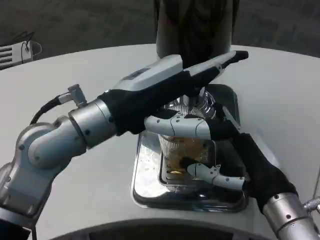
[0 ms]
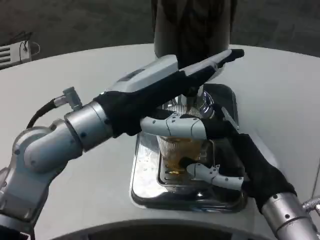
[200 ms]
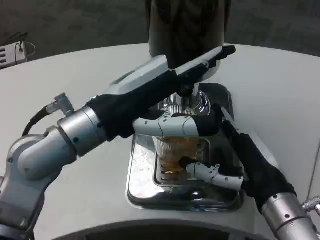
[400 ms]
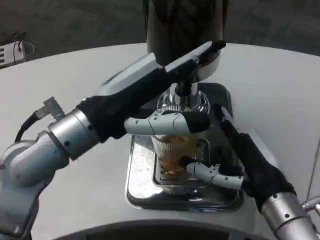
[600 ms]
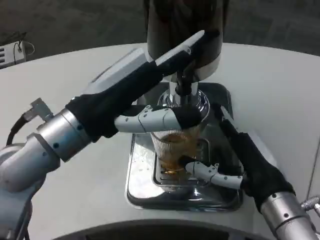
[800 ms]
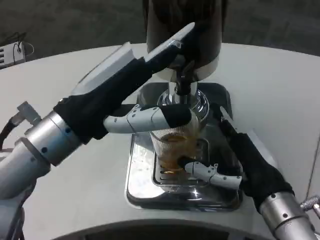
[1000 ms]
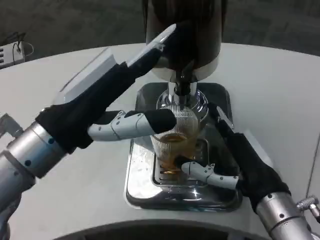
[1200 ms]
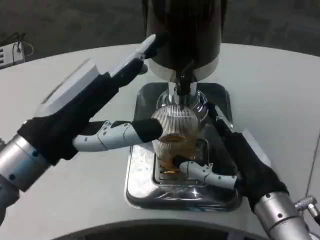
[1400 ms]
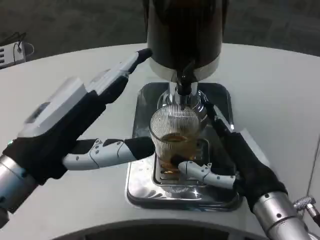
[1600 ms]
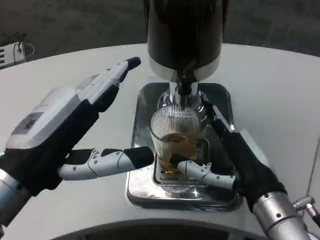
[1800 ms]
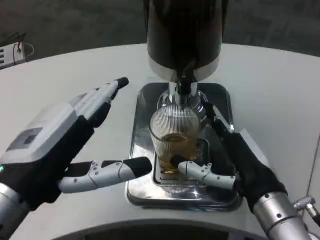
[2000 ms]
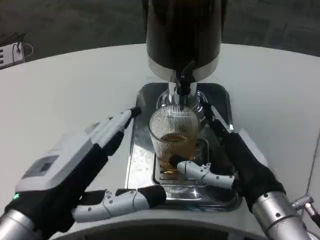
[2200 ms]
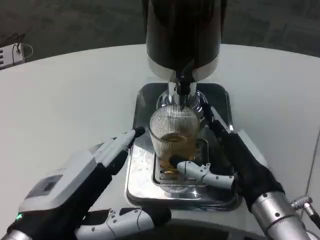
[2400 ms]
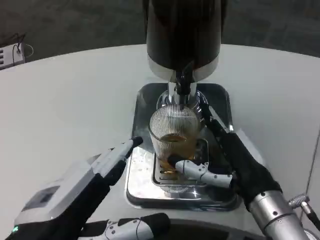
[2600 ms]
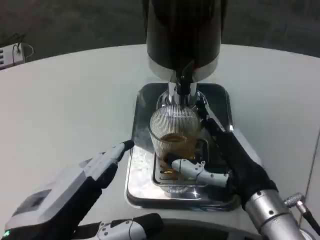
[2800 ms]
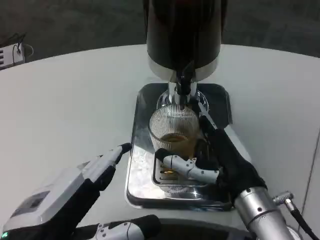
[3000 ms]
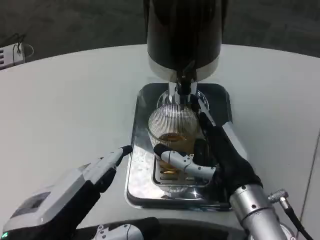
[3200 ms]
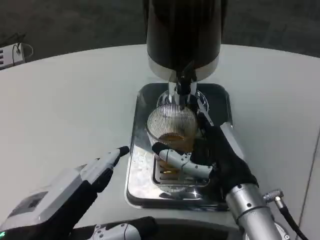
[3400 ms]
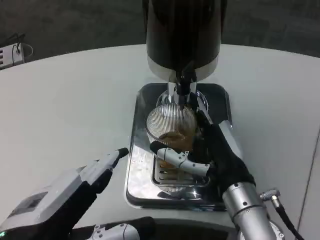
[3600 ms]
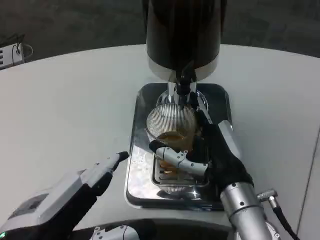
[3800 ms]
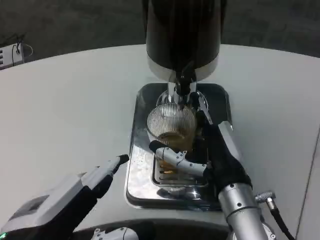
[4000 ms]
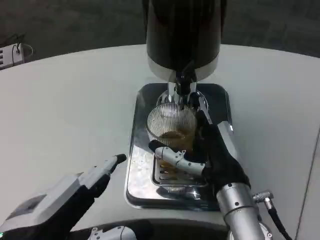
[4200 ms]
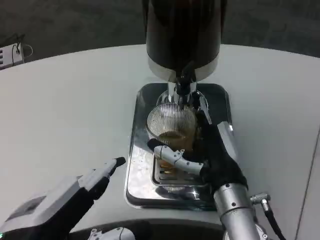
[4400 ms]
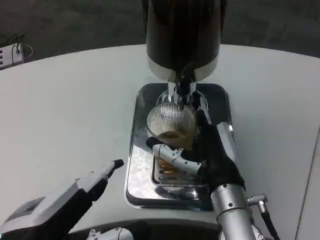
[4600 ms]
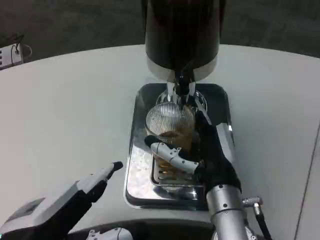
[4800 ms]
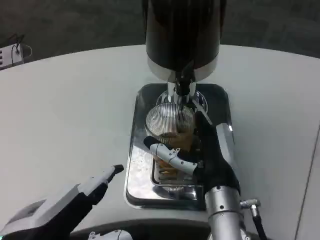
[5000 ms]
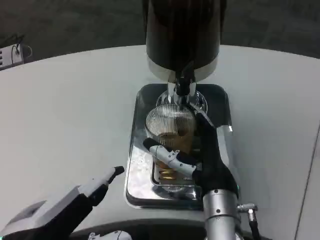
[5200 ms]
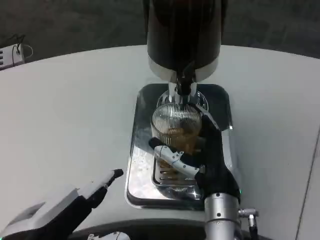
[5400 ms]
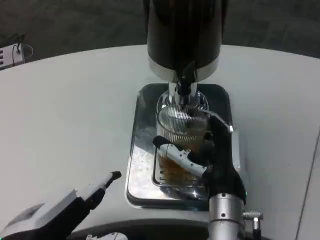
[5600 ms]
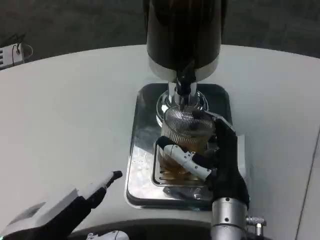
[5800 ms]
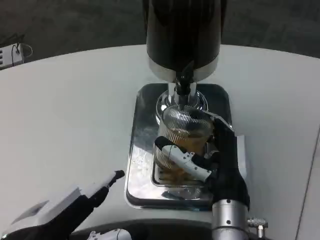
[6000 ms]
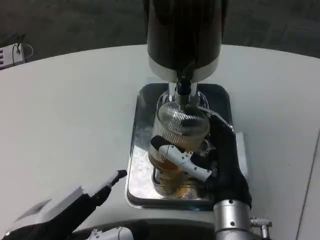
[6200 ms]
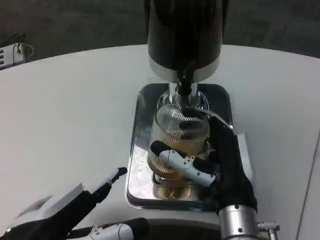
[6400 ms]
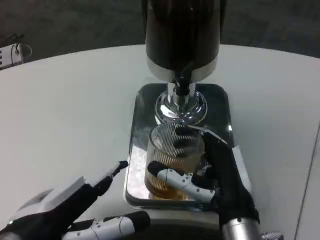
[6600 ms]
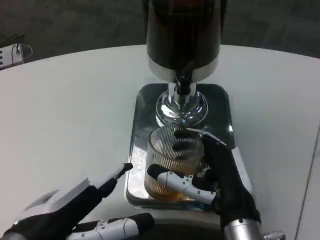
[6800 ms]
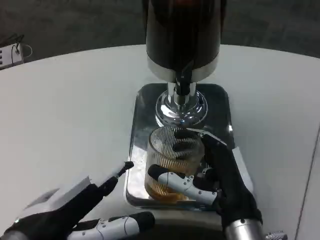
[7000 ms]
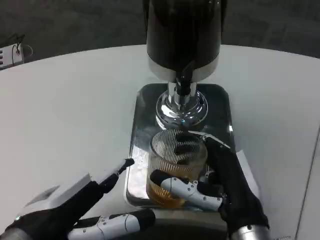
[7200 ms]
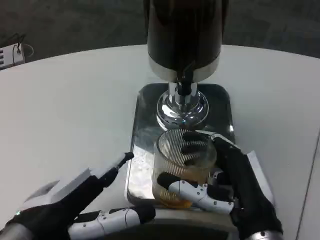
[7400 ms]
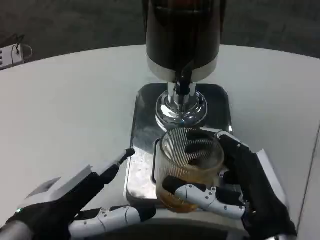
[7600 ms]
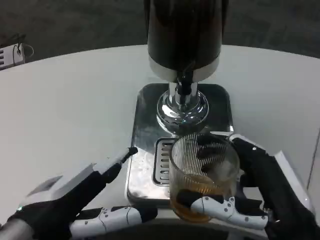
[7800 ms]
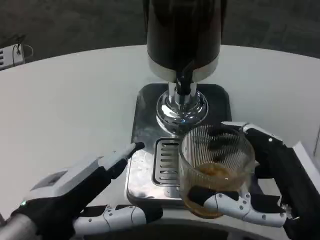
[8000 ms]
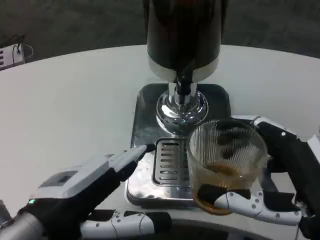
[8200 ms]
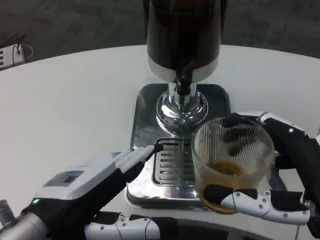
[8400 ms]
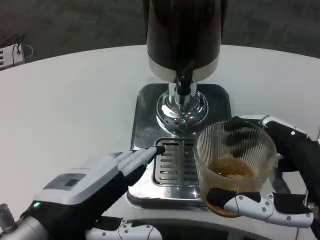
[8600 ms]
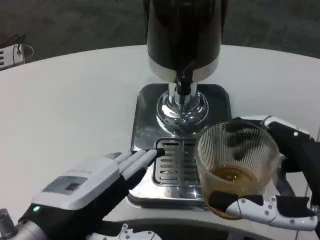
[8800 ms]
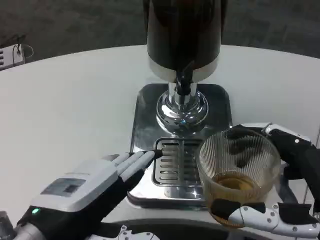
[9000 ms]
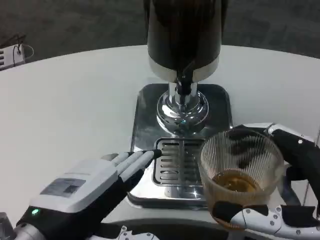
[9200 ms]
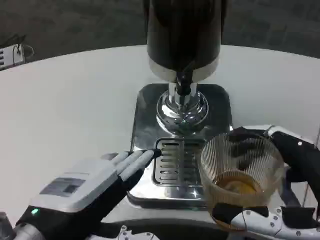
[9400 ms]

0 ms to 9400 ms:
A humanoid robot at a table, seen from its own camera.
Task of the whole recording: Grasp the cup under the faucet to collect the drink, then remove the cup.
0 ms to 1600 ms: The left hand shifts some 10 cm backward and to the left.
1600 ms to 3200 ms: The left hand moves backward, some 10 cm.
3200 ms to 4800 ms: The hands move only a little.
4800 ms to 6200 ms: There are only small adjustments of the hands.
6200 ms to 7800 ms: The right hand shifts approximately 10 cm backward and to the right.
7800 ms to 9400 ms: The right hand moves some 5 cm.

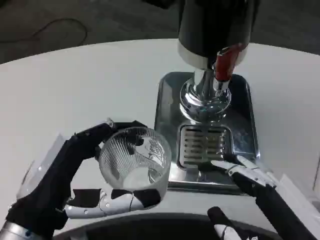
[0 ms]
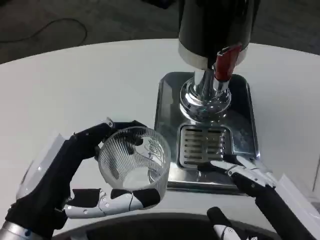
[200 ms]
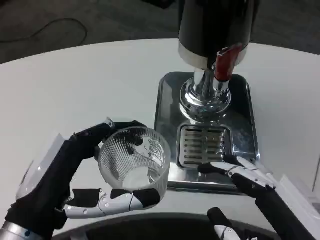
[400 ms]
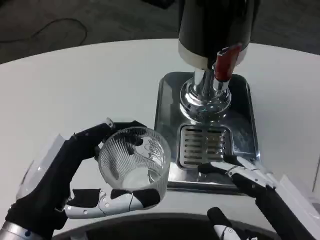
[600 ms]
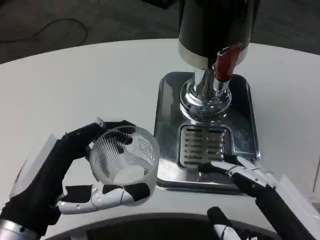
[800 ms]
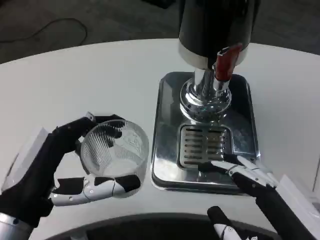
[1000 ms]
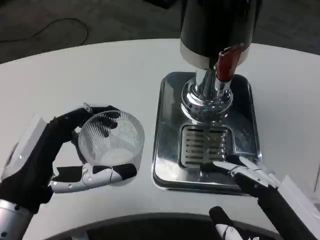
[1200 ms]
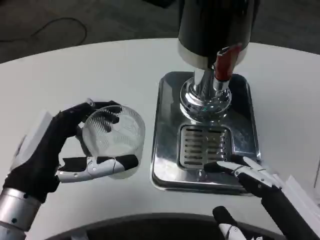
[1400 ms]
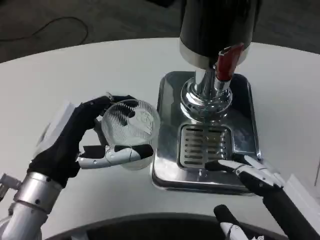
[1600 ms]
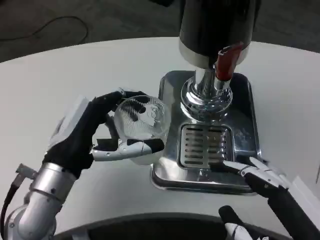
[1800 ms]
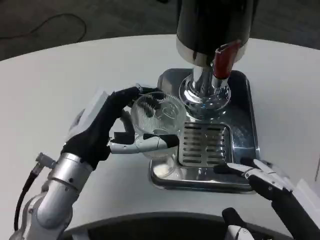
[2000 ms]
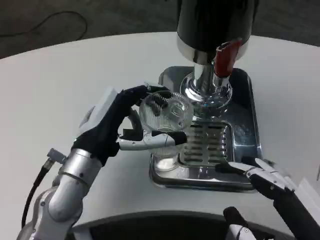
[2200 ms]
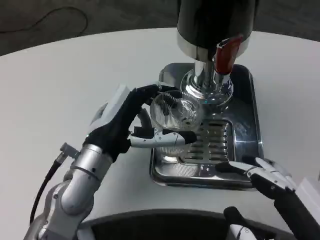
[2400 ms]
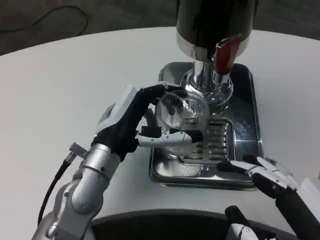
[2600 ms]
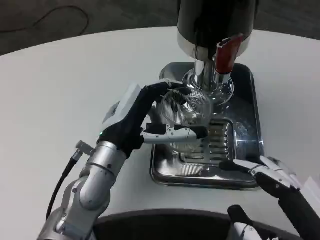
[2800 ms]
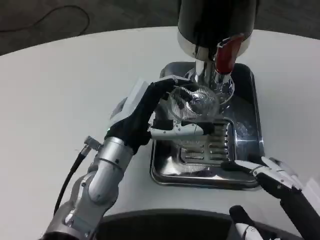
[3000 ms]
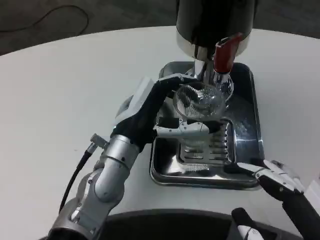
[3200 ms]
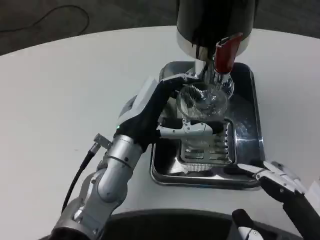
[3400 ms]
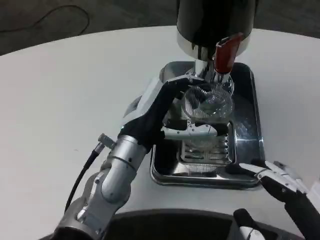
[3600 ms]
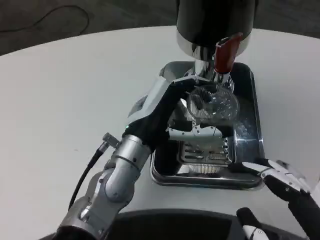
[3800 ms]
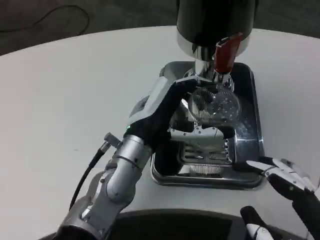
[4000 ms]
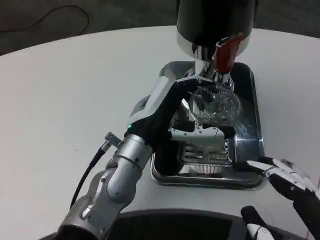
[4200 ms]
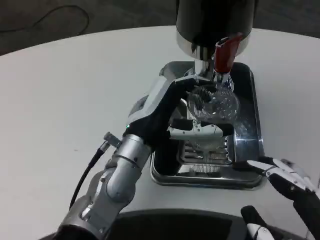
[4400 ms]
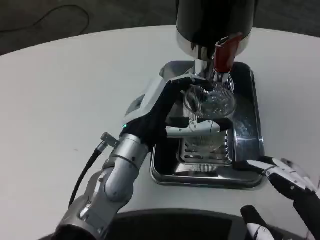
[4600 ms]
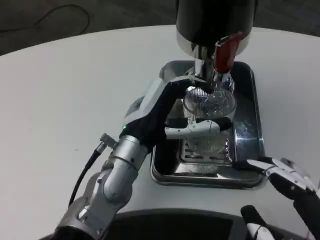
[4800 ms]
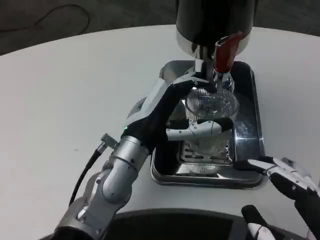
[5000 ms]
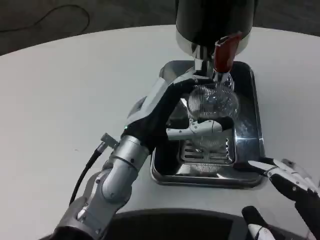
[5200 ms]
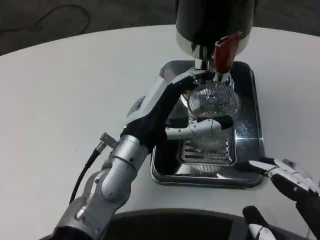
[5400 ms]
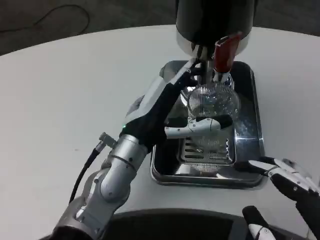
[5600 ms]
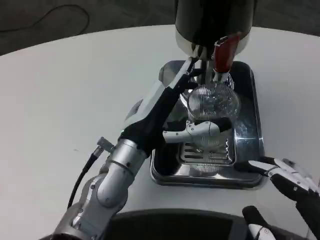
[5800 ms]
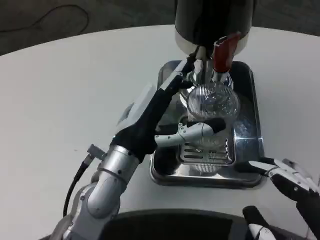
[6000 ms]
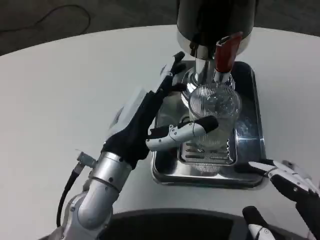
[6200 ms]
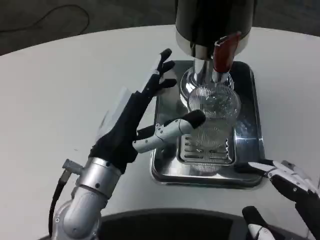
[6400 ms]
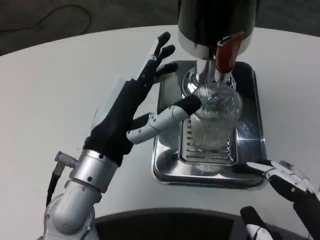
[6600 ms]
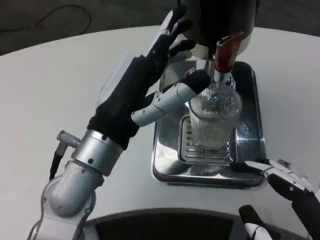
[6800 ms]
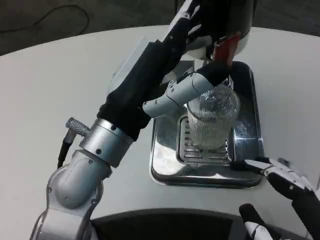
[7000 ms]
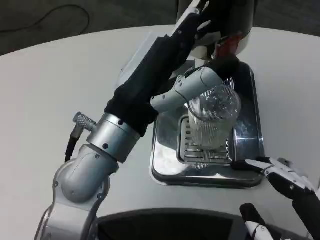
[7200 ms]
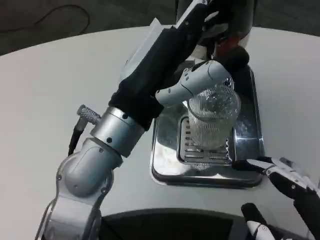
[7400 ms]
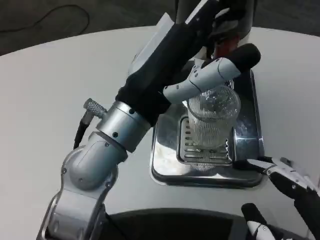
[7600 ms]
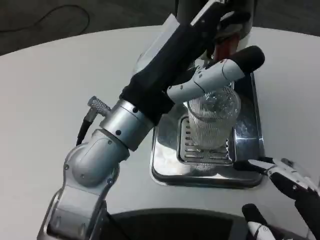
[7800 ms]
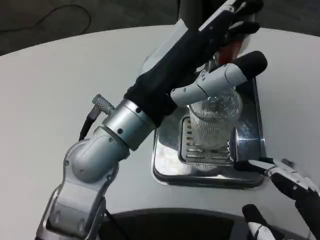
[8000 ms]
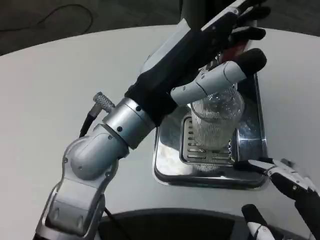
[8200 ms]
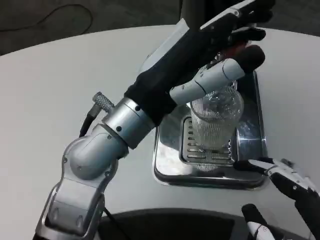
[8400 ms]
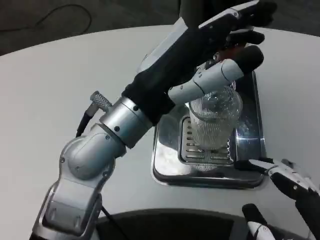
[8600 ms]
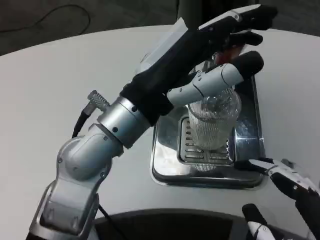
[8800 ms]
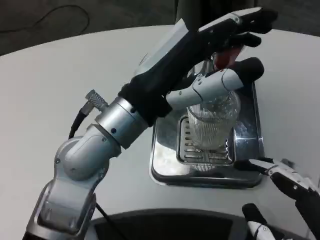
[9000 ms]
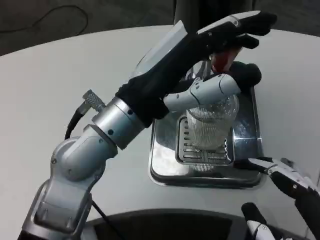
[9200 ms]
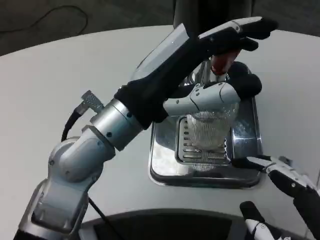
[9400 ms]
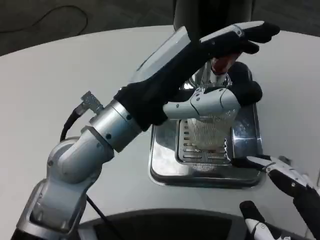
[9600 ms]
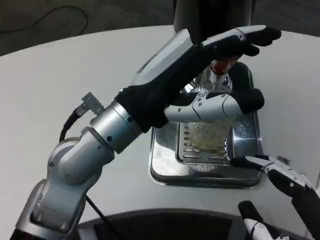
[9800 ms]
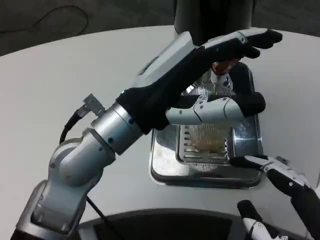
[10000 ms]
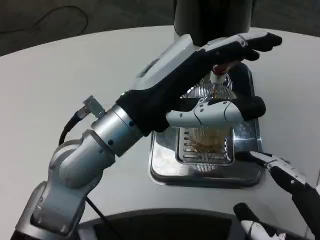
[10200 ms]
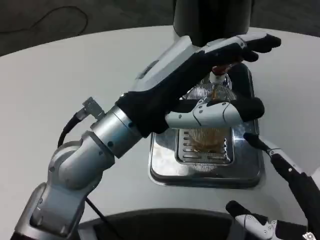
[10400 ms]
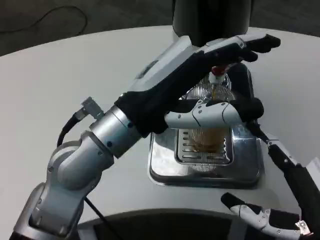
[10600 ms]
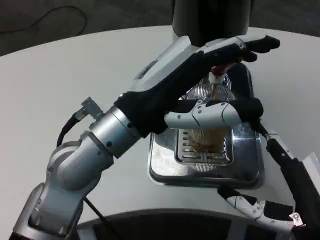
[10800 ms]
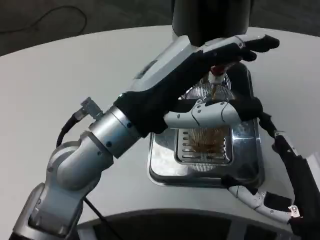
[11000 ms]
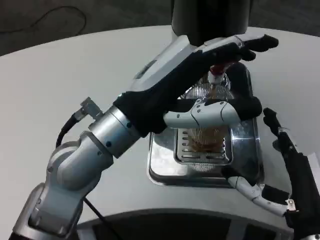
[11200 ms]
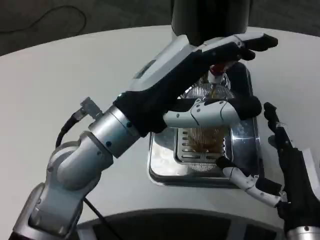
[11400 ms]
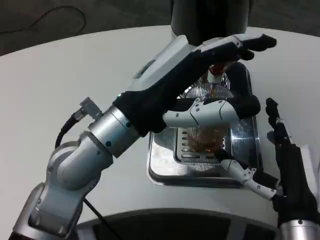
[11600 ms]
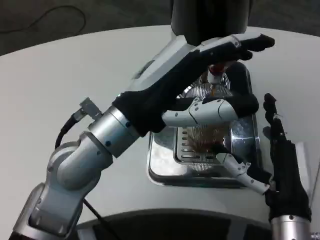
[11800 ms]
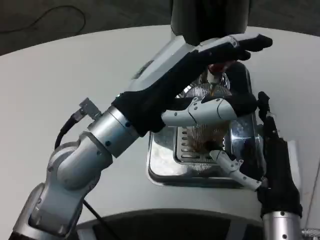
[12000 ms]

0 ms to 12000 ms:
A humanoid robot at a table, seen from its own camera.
Task of the whole recording: Grasp the cup under the faucet to collect the drink, then remove the cup.
0 ms to 1600 ms: The left hand travels forward by some 10 cm.
1600 ms to 3000 ms: The left hand is displaced to the right and forward by about 10 cm.
4400 ms to 6000 ms: The hands stay close to where they were, moving slightly.
6000 ms to 7600 ms: The left hand goes about 10 cm upward.
7600 ms to 9000 ms: The hands make only small movements.
10400 ms to 12000 ms: The right hand goes some 10 cm forward and to the left.

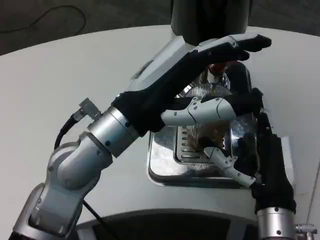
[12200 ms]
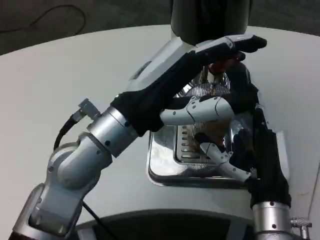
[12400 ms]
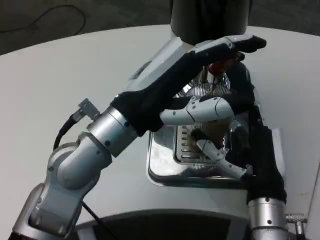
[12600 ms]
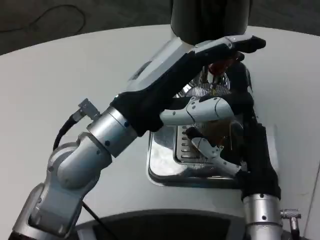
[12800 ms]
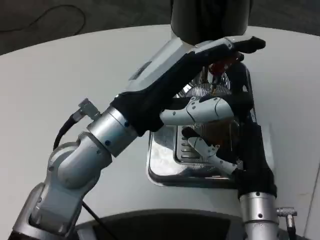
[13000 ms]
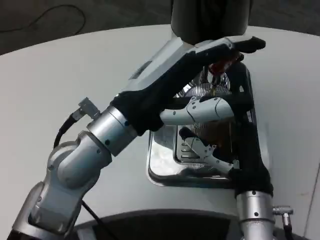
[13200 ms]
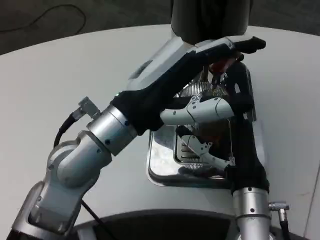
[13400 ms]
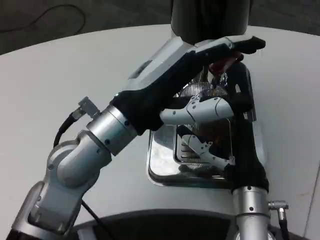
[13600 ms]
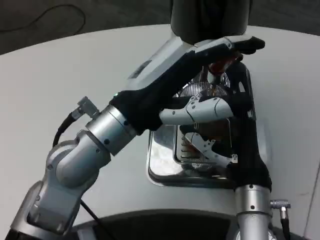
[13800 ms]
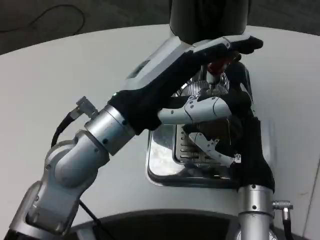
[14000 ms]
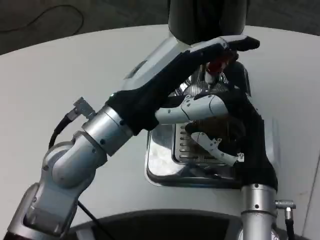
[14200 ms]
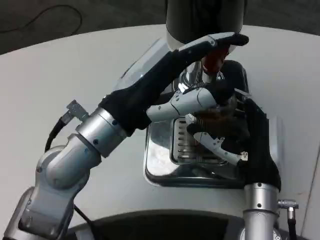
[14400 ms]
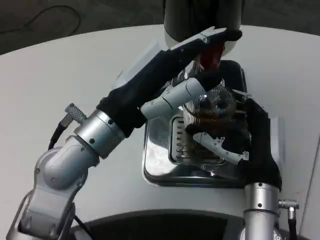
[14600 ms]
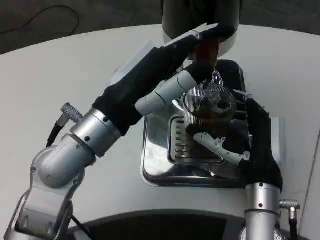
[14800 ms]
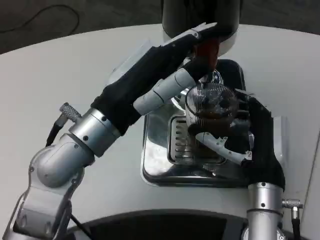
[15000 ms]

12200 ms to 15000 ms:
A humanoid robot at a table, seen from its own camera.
Task of the whole recording: Grasp the cup under the faucet to collect the drink, then remove the cup.
12200 ms to 13600 ms: The hands make only small movements.
